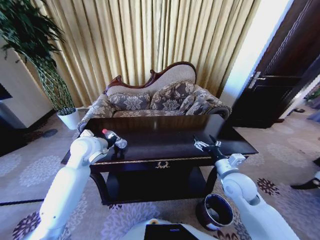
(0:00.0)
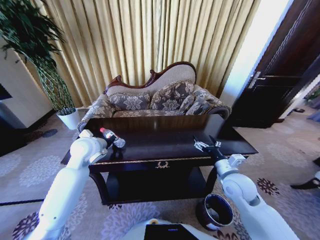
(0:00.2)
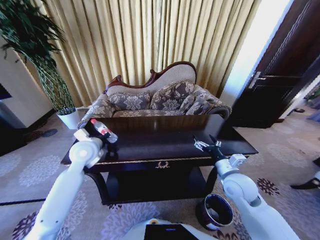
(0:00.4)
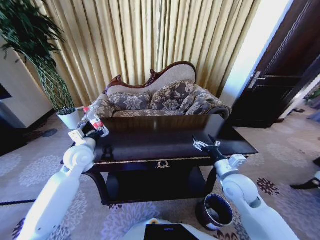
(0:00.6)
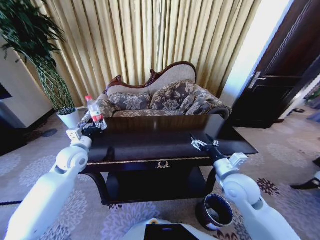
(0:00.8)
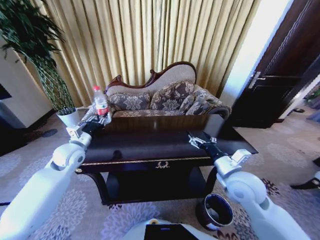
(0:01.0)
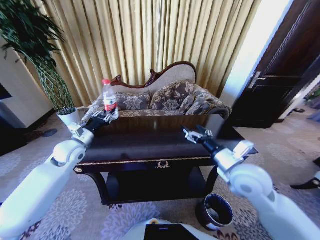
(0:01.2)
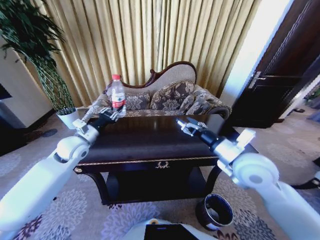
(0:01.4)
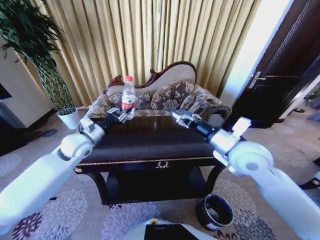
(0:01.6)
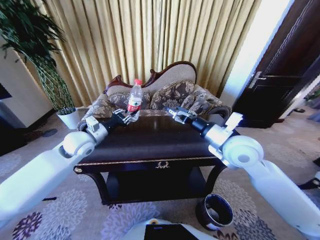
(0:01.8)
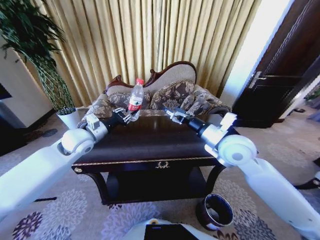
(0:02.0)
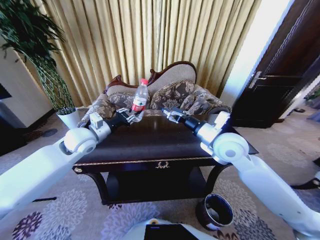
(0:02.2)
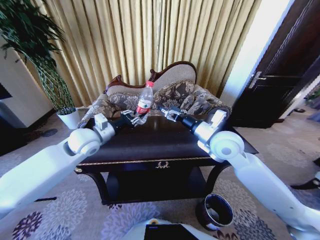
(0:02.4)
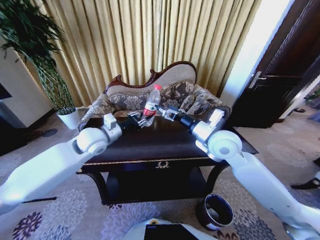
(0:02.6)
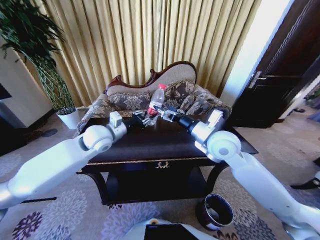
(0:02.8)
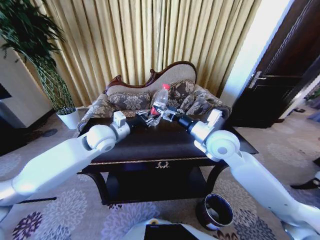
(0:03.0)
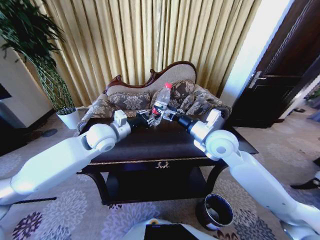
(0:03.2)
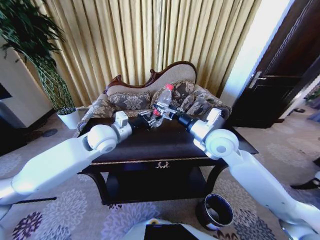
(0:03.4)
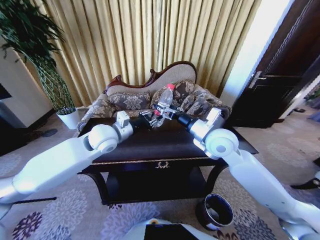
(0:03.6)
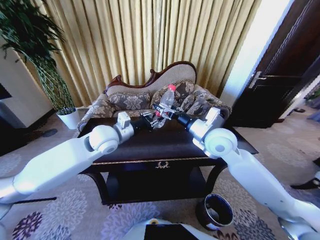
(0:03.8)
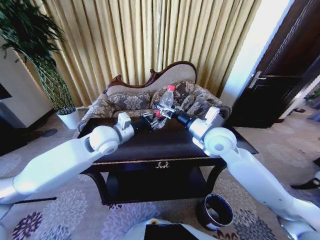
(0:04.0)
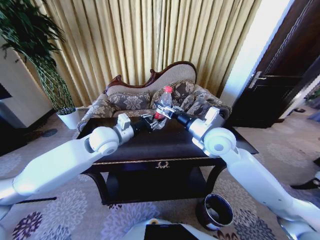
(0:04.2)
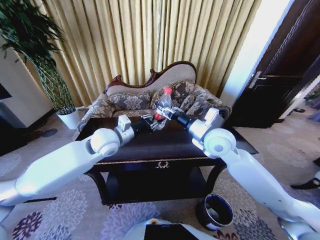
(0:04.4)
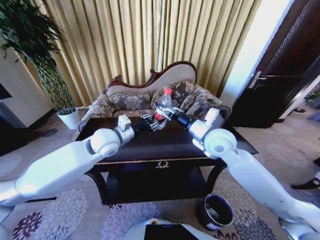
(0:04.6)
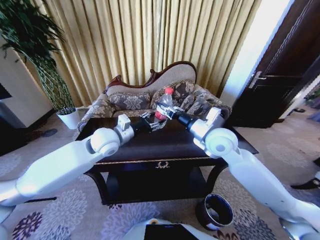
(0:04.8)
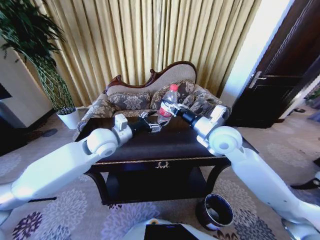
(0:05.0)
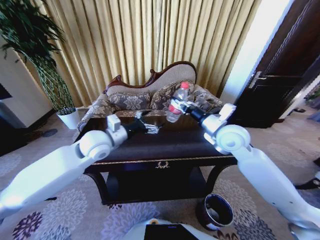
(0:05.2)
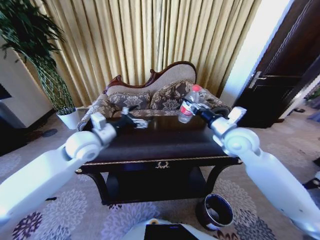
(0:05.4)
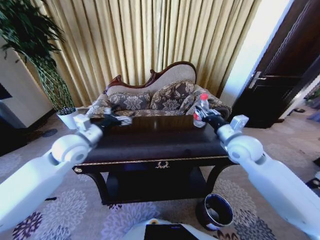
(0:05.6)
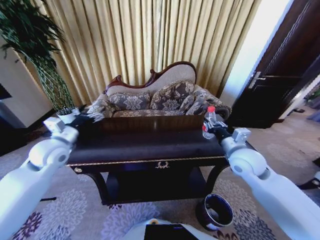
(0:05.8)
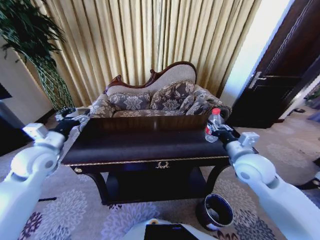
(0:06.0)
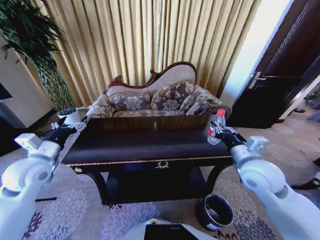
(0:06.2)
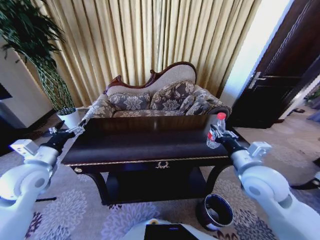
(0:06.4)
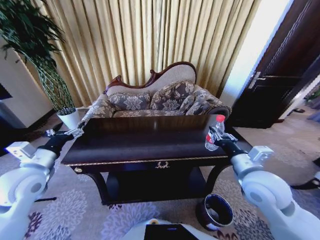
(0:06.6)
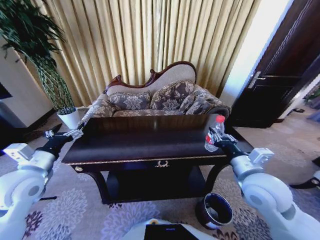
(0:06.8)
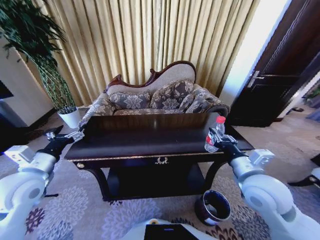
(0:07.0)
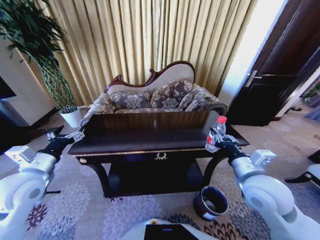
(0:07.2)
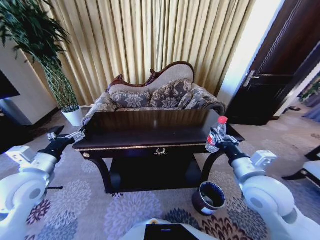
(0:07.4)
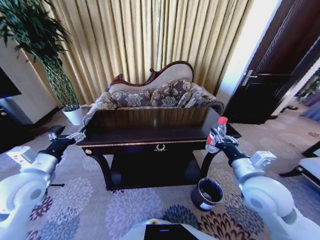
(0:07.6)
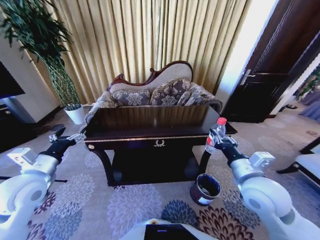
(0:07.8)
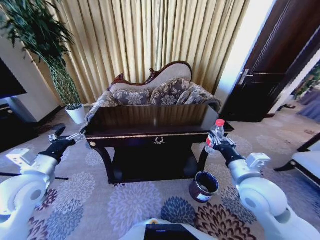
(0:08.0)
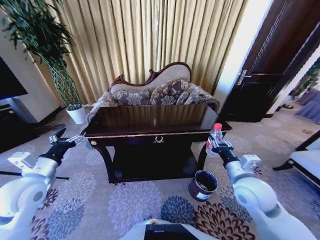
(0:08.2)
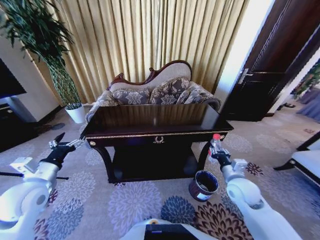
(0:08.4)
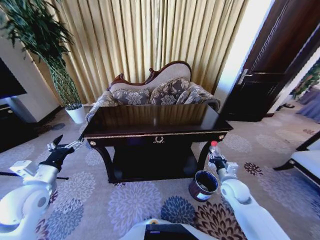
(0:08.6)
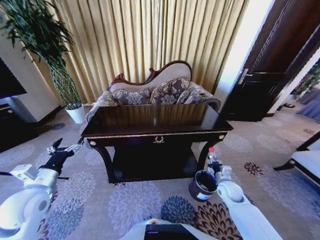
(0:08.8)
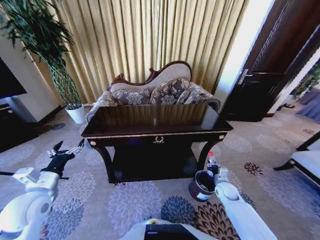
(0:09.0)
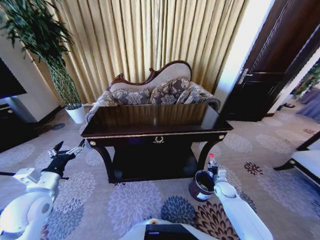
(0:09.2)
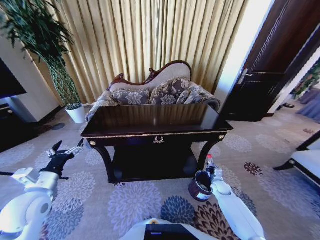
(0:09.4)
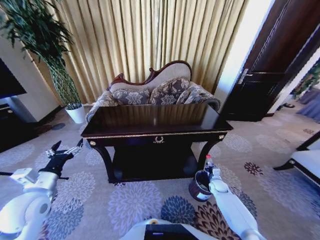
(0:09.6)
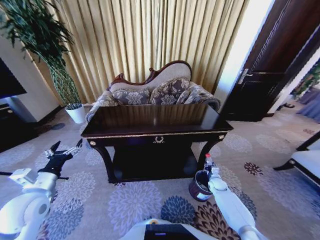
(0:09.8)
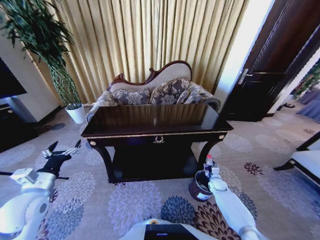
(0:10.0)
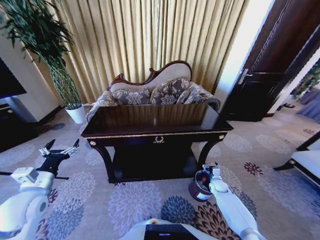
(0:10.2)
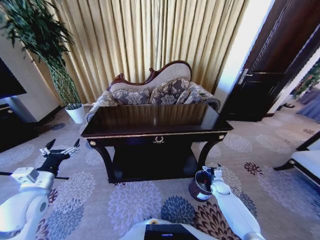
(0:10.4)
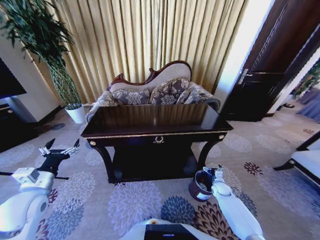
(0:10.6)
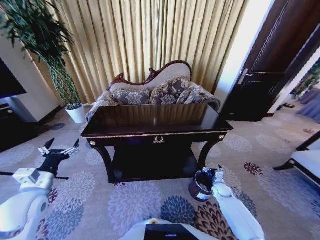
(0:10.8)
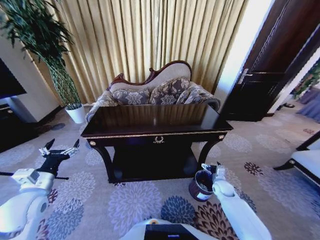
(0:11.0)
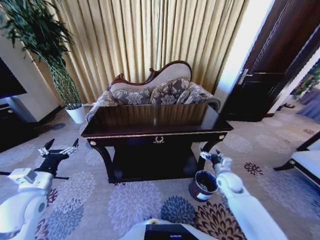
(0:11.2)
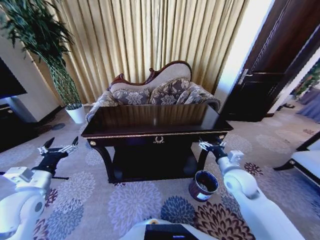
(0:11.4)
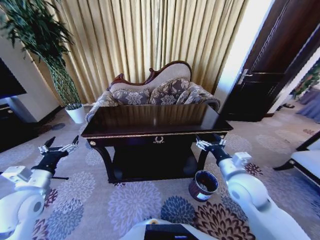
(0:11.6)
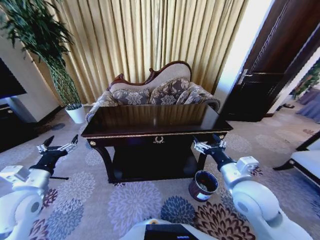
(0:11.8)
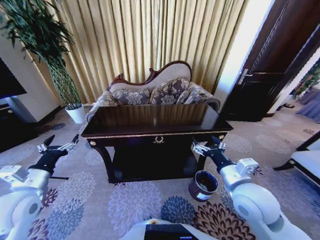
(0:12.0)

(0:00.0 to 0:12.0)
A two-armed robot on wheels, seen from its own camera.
Task of the whole recording: Move to the front of the table and place the trash on the table into the trash bin.
0:00.0 - 0:01.6: The right gripper is displaced upward by about 15 cm.
0:01.6 - 0:03.0: The right gripper travels forward by approximately 5 cm. The left gripper goes about 10 cm to the right.
0:03.0 - 0:04.4: The right gripper closes up.
0:04.4 - 0:06.0: The right gripper shifts some 15 cm to the right and backward; the left gripper is displaced to the left by about 20 cm, and opens.
0:06.0 - 0:07.6: Both grippers travel together backward, approximately 10 cm.
0:07.6 - 0:09.0: The right gripper goes some 30 cm downward. Meanwhile the left gripper moves downward, some 5 cm.
0:09.0 - 0:10.4: The right gripper shifts some 10 cm downward, and opens its fingers.
0:10.4 - 0:12.0: The right gripper travels upward by about 35 cm.

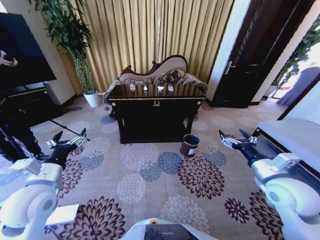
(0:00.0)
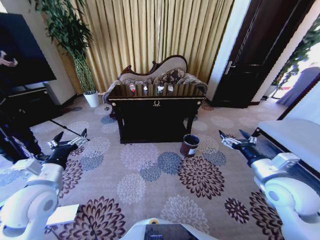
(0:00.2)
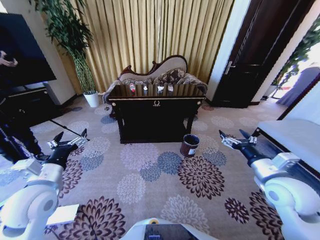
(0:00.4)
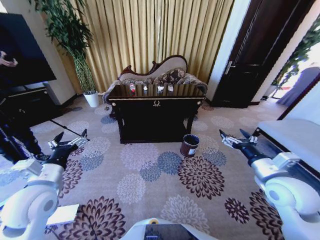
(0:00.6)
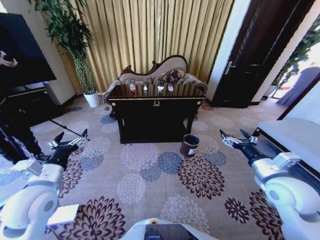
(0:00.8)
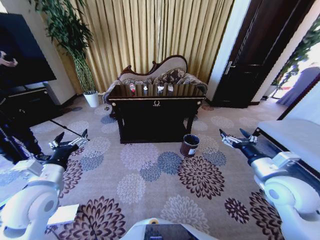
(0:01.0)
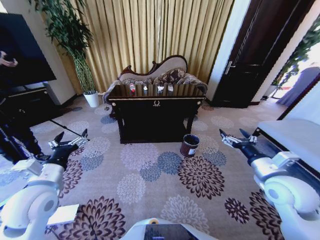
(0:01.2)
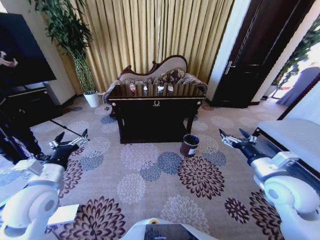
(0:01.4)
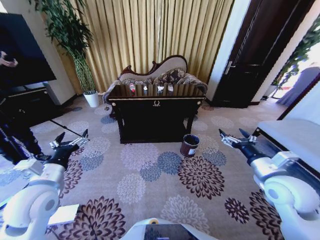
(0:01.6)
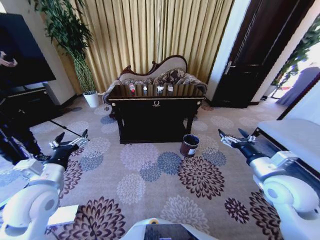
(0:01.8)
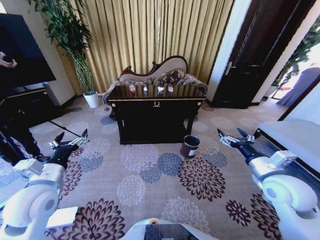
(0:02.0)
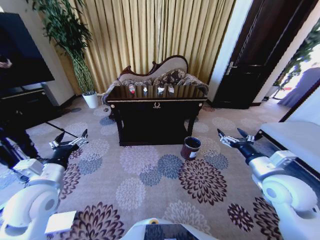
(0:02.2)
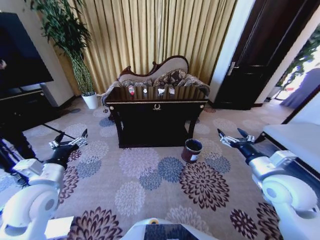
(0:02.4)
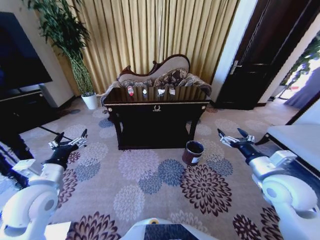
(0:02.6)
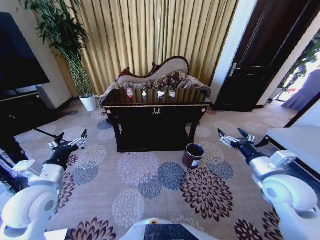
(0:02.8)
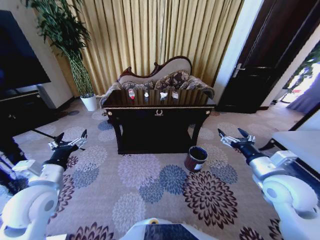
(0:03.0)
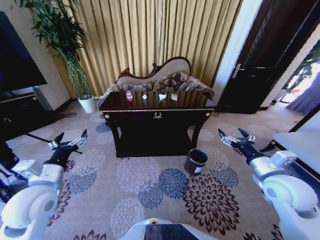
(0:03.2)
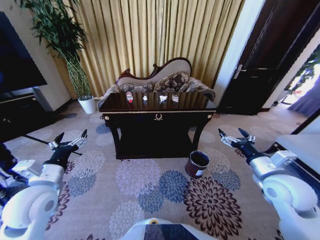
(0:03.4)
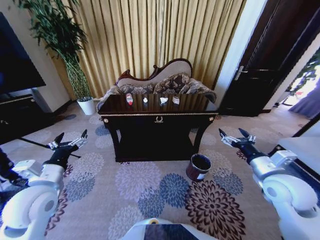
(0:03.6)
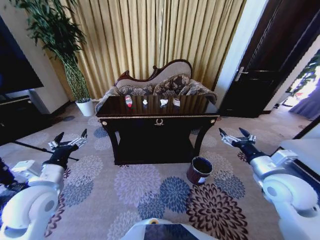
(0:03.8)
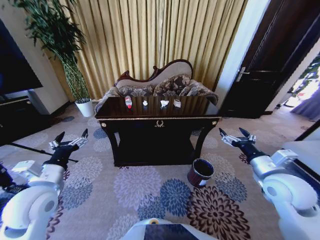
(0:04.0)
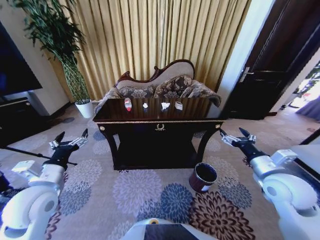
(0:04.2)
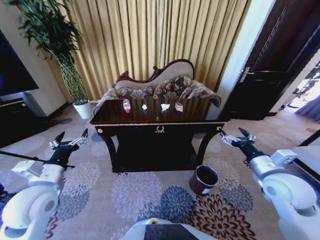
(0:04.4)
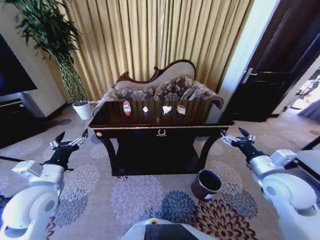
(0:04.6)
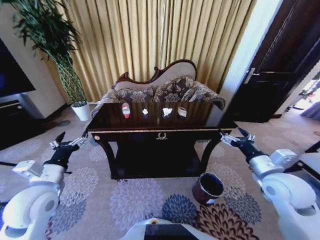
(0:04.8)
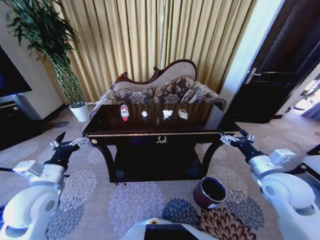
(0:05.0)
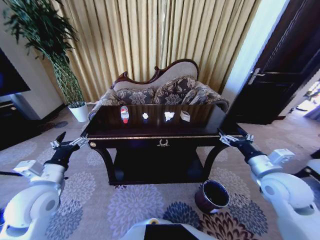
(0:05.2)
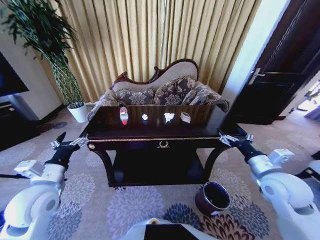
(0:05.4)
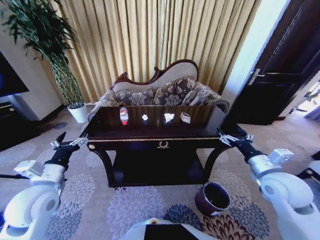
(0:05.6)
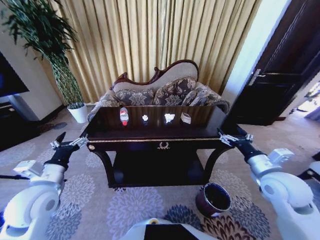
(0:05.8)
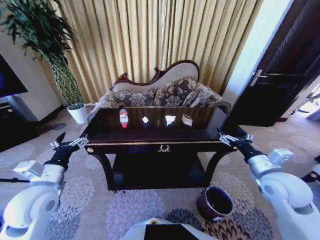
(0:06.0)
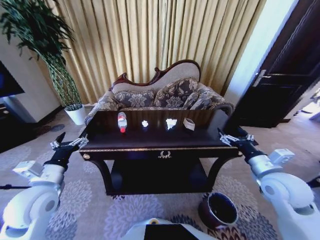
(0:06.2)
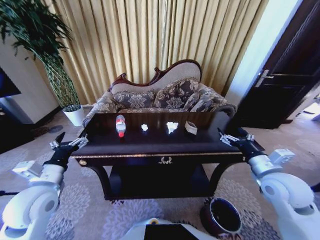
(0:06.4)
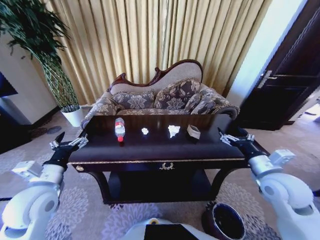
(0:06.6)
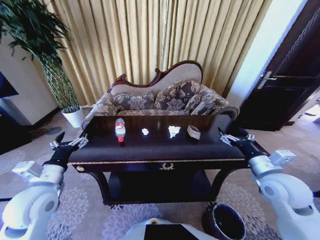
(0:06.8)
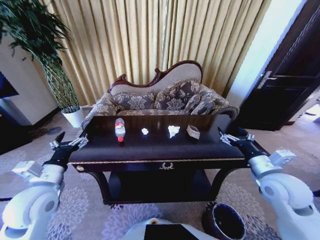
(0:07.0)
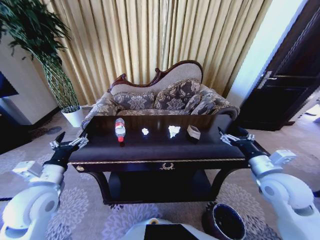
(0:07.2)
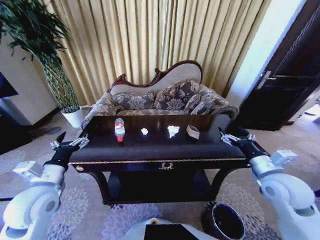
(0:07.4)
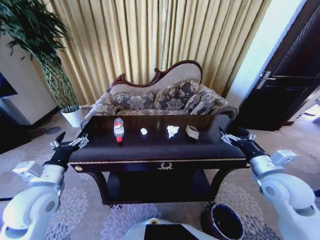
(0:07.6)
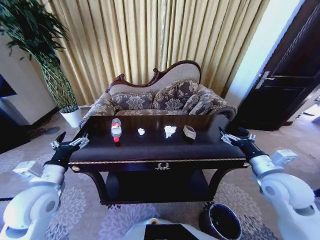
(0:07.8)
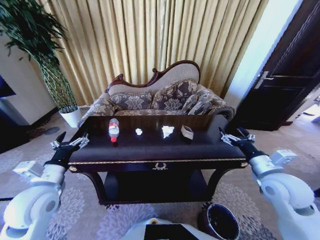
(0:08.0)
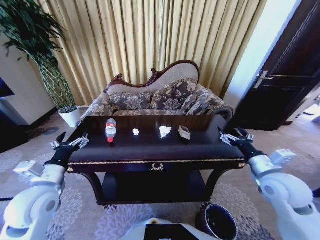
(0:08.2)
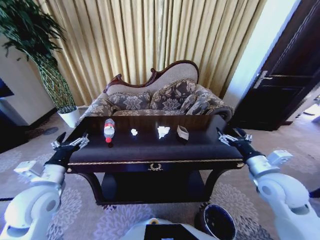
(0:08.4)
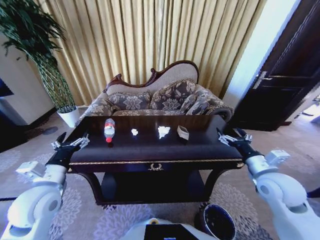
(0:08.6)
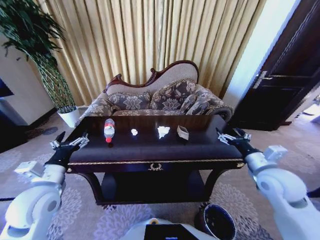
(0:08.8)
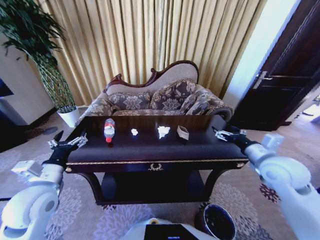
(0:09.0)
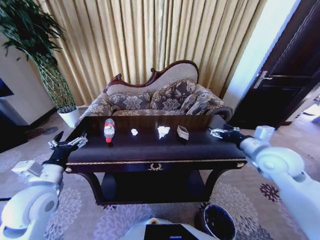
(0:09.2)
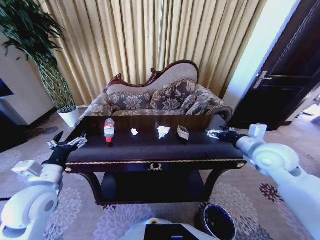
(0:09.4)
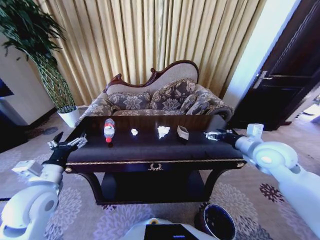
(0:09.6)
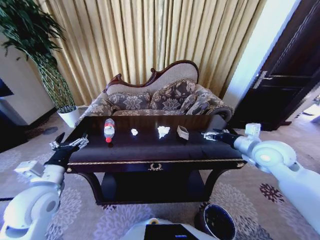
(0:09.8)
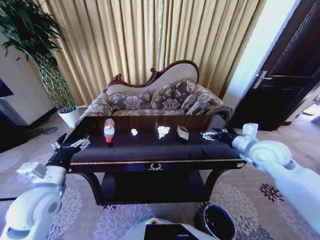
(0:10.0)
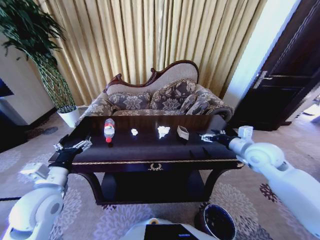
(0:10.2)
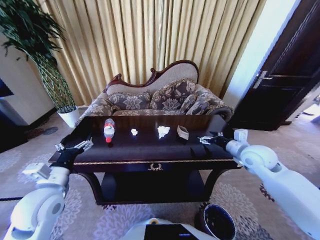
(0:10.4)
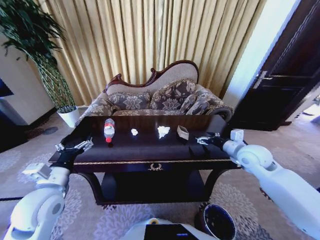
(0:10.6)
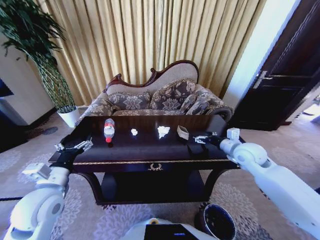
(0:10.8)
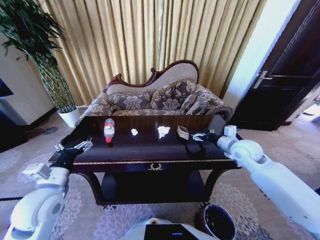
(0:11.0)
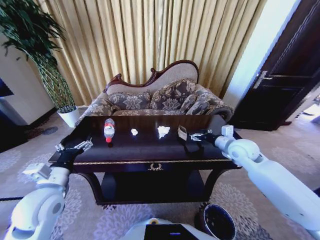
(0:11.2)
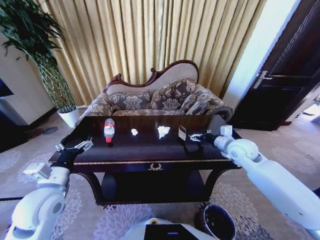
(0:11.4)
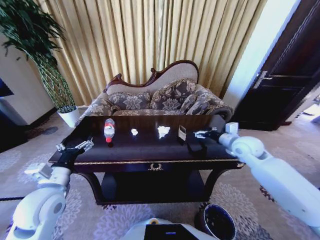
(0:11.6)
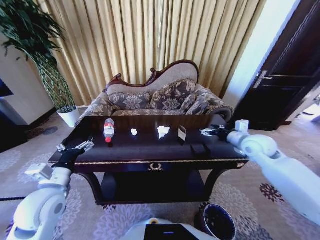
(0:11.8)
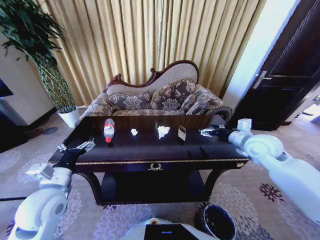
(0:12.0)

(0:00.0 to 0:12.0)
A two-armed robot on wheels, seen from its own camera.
Task of the whole recording: Move to the front of the table and place the trash on the table into the trash bin.
0:09.0 - 0:10.4: The right gripper is displaced forward by about 5 cm.
0:10.4 - 0:12.0: The grippers stay close to where they were, moving slightly.
